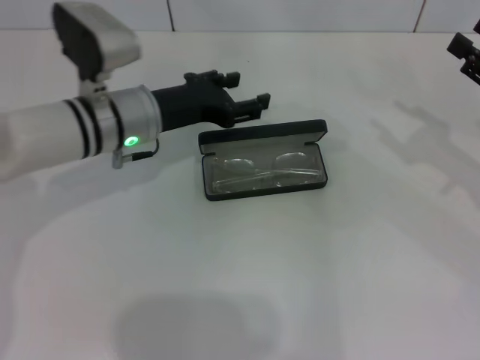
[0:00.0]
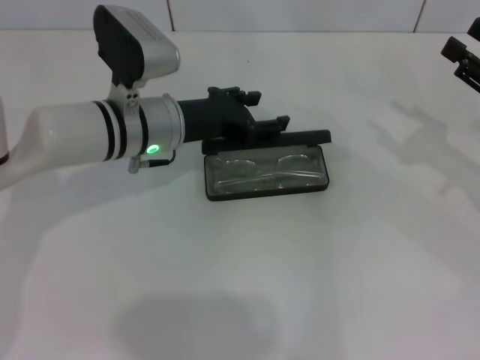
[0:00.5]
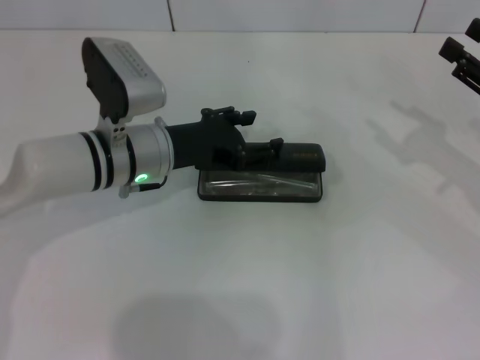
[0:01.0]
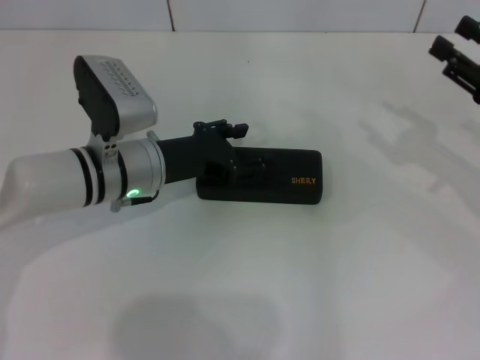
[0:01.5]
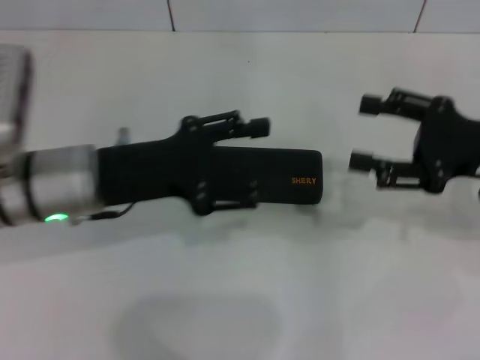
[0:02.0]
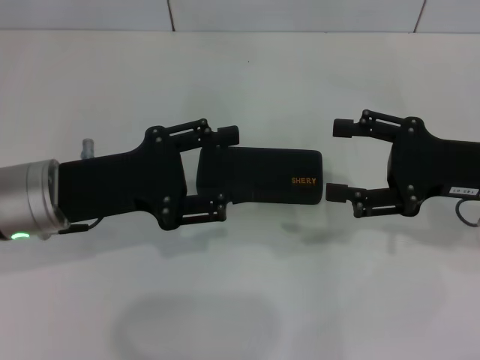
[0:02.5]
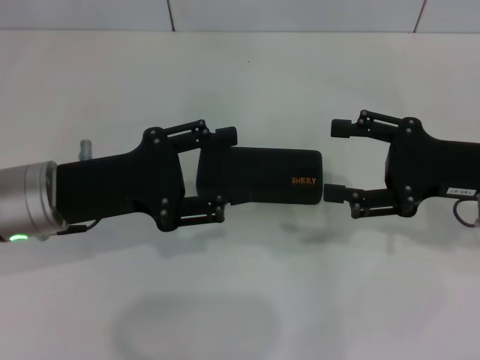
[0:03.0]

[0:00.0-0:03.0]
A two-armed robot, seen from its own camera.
0.0 to 1.5 s: The grippers stay close to where they were, moving slightly.
1.5 to 3.0 s: The right gripper moves to the left, about 5 cm, and opens up, while the left gripper moves backward, to the left and upward, roughly 10 cm.

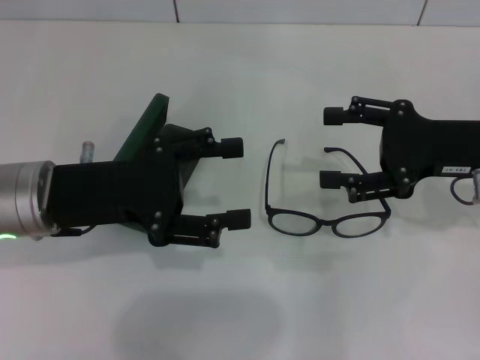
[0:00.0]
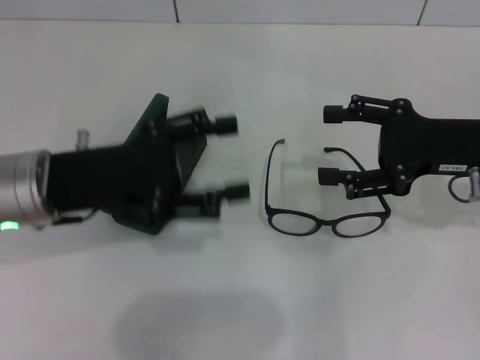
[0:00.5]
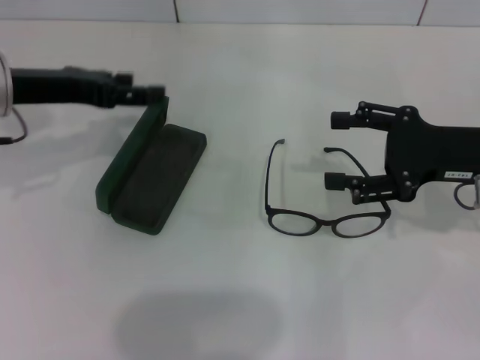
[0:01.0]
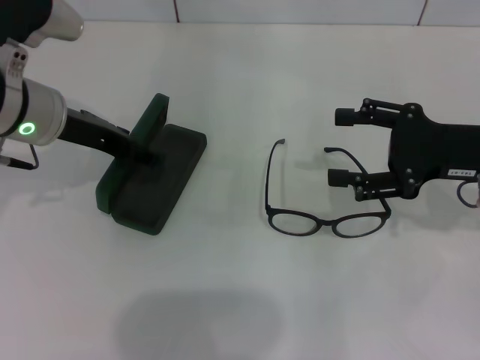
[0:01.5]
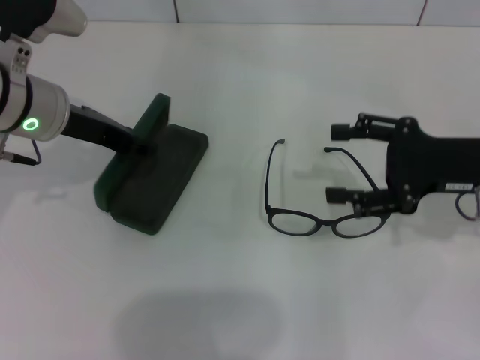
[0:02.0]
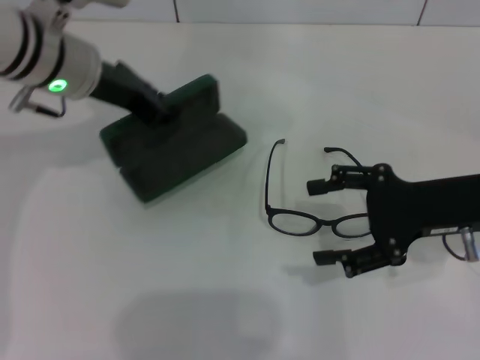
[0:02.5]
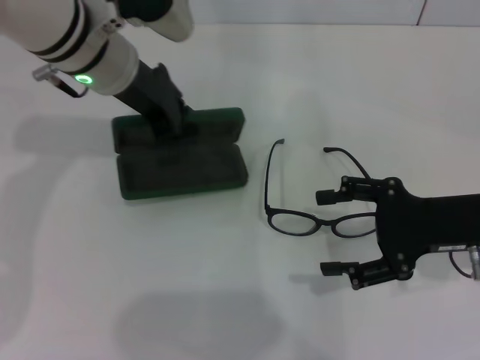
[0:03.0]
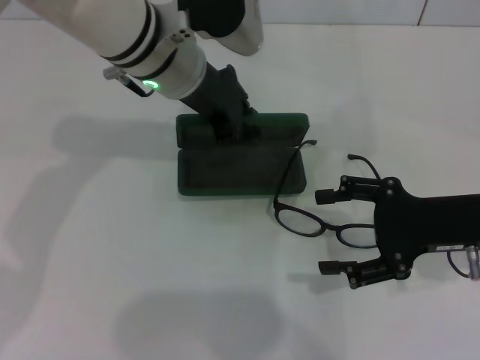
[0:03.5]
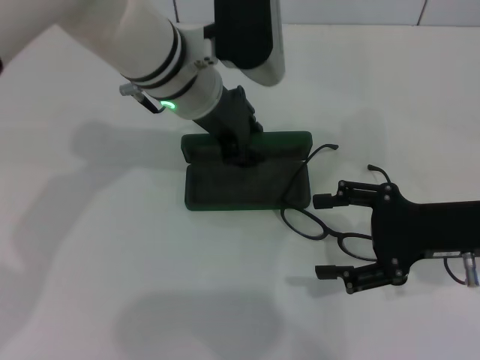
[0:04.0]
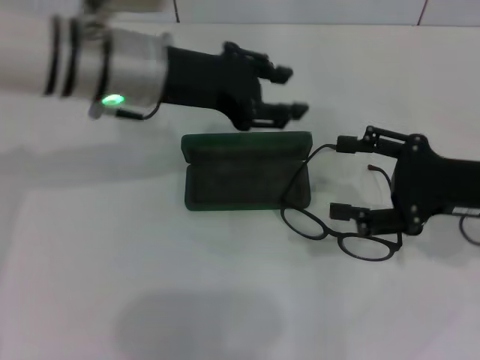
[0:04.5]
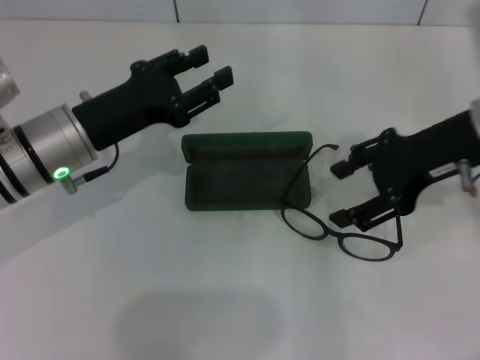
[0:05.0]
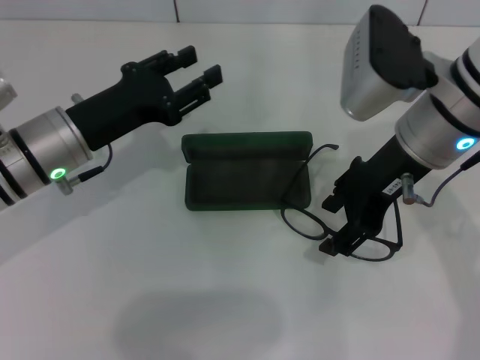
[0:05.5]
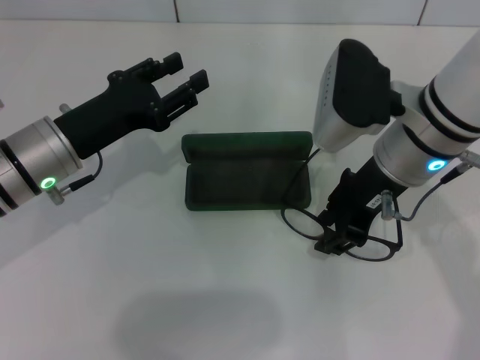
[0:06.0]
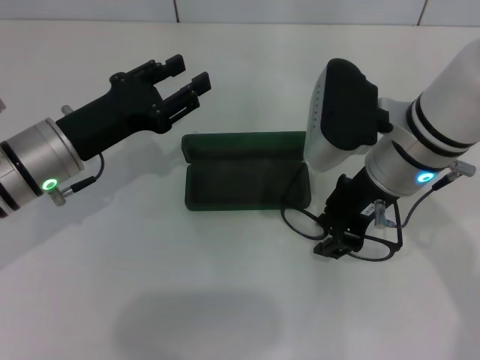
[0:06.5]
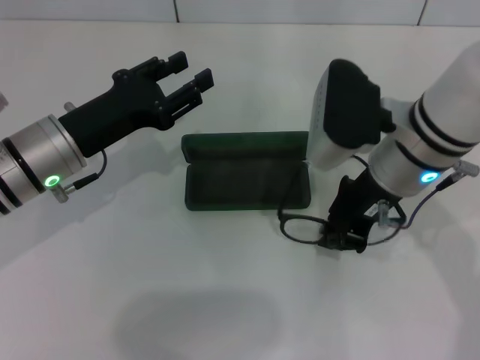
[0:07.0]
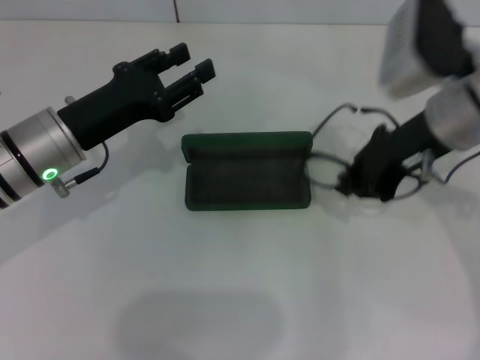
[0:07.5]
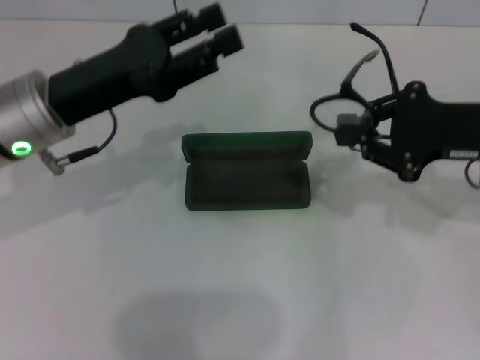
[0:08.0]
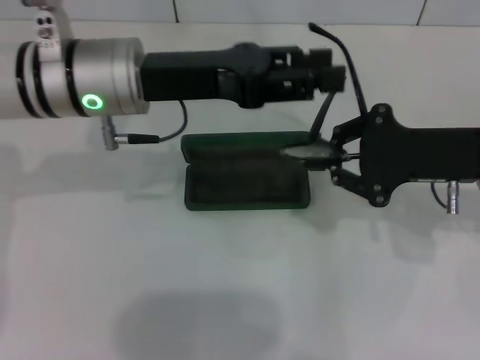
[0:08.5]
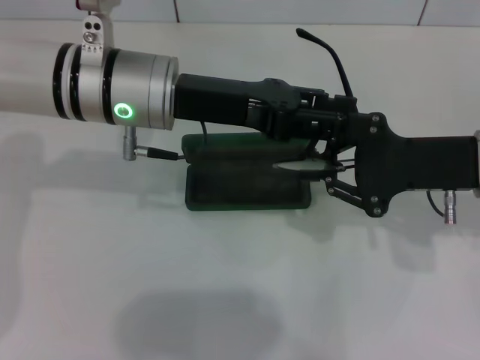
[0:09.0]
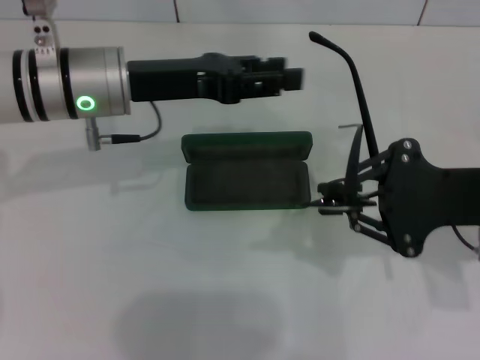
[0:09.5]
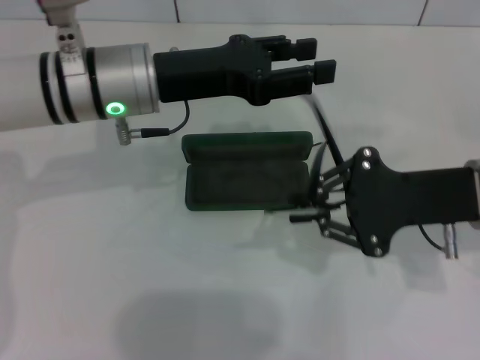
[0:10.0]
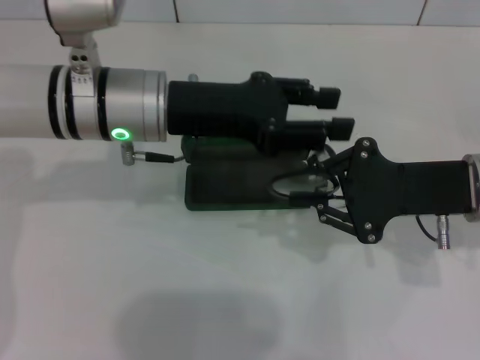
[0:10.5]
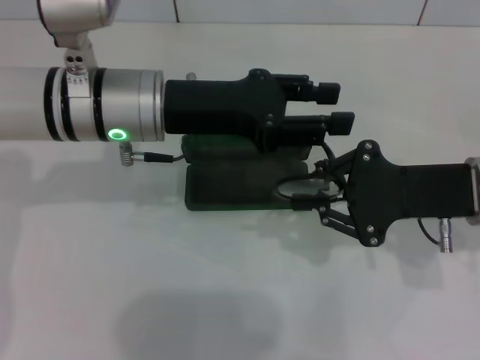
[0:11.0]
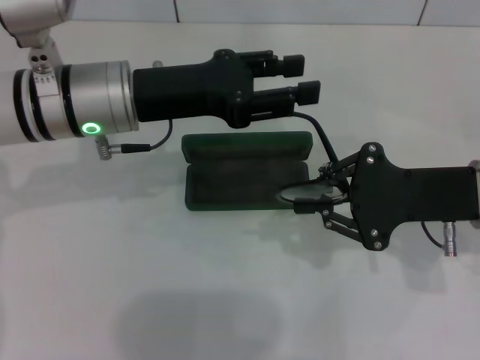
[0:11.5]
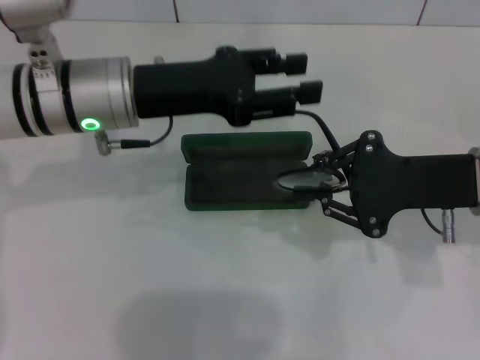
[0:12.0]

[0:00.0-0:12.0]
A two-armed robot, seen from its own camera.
Step, 0.0 to 2.0 s: Grab the glasses case with your left hand.
Step, 2.5 to 4.0 s: Place the glasses case in the center of the table with your left hand.
Step, 4.5 to 6.5 s: Grab the eyeglass frame with your right hand.
Step, 7.0 to 10.5 s: Fold the frame with your left hand.
0.0 to 2.0 s: The left gripper goes some 10 cm forward, and closes.
2.0 to 4.0 s: The left gripper heads to the right, covering roughly 15 cm, and closes up.
4.0 to 6.0 s: The left gripper is displaced to the left, downward and backward by some 20 cm, and opens its fingers, while the right gripper travels to the left, upward and forward by approximately 15 cm, and closes up.
6.0 to 8.0 s: The left gripper travels upward by approximately 5 cm. The right gripper heads to the right, covering approximately 15 cm, and closes.
8.0 to 10.0 s: The left gripper travels to the right by roughly 5 cm. The right gripper shifts by some 5 cm.
10.0 to 12.0 s: The grippers stay close to where they were, moving slightly.

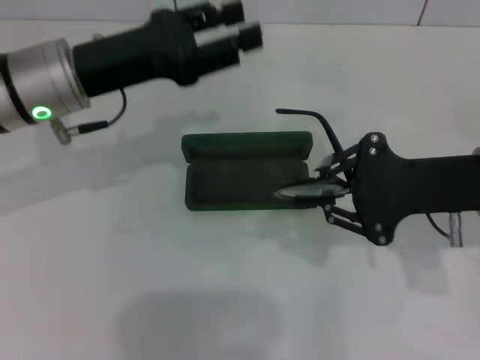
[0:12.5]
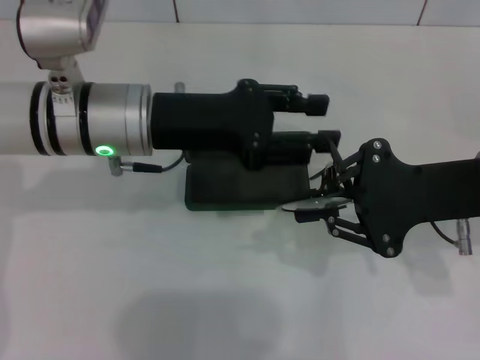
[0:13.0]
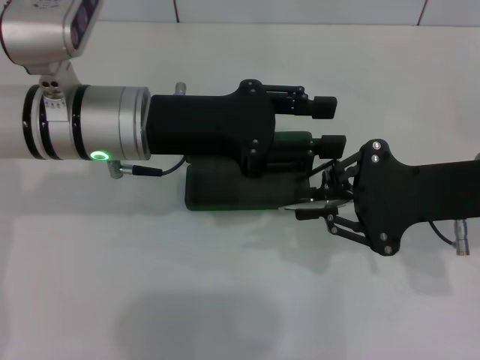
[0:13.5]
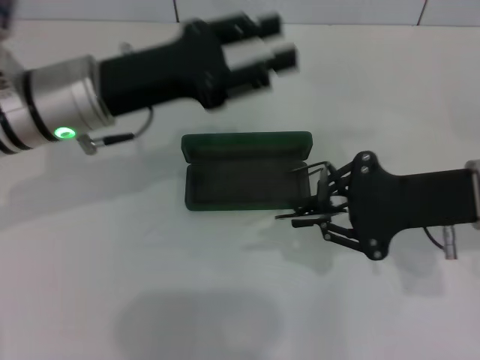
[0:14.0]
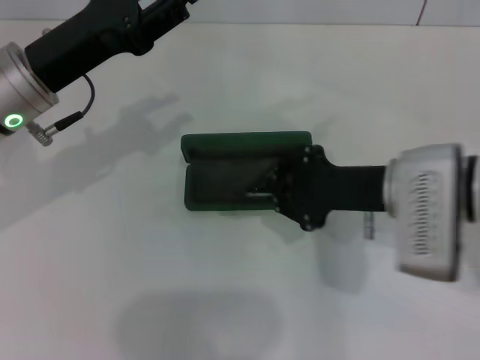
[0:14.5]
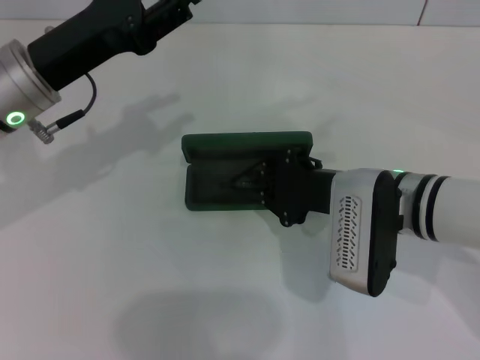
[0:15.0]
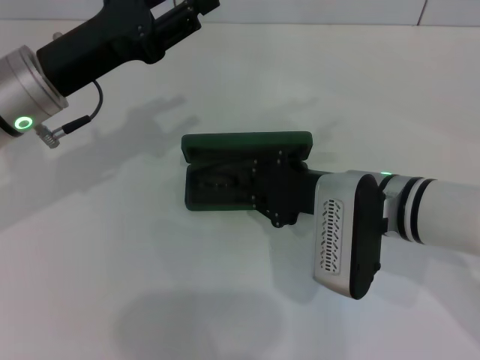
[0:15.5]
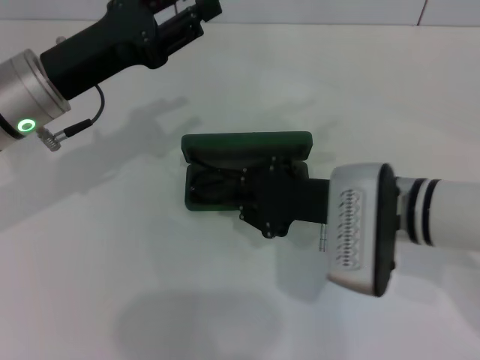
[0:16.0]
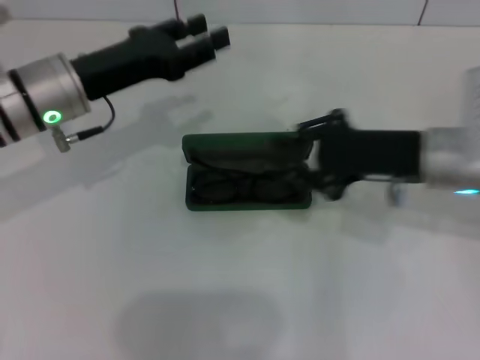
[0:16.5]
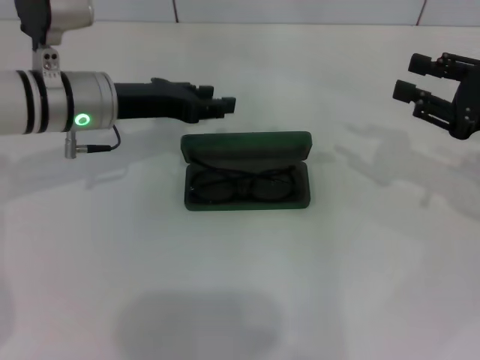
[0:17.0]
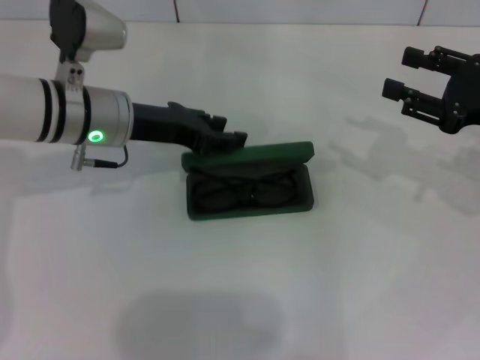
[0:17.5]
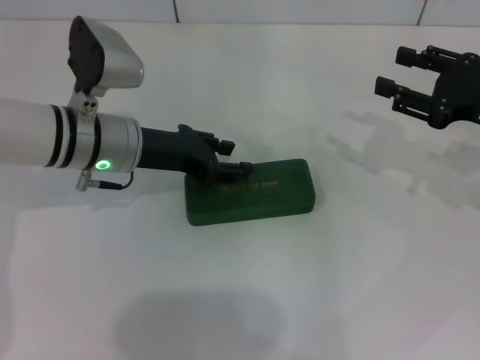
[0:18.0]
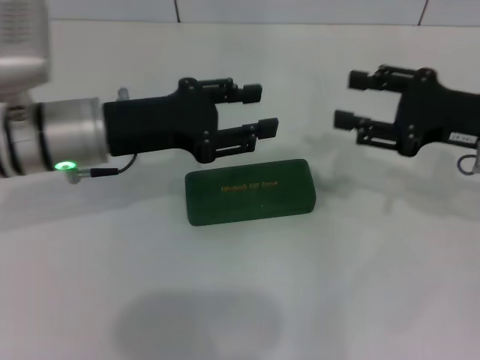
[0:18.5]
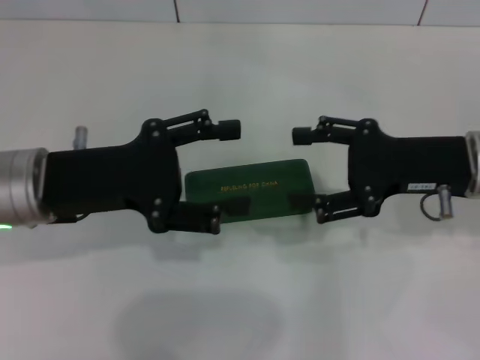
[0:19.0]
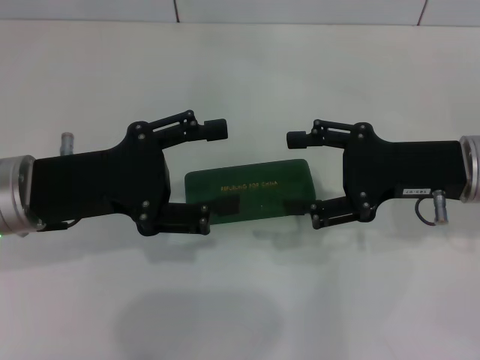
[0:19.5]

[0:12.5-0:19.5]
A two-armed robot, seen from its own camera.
Step, 12.5 to 15.5 s: Put the glasses into the case with your right hand.
Step, 16.0 to 17.5 s: Close the glasses case with your left hand.
12.5 to 14.5 s: The left gripper moves some 5 cm to the right and comes back. The right gripper moves to the left, some 5 cm.
14.5 to 16.0 s: There are only small adjustments of the grippers.
16.0 to 17.5 s: The left gripper ends up some 5 cm from where it was, while the right gripper is displaced to the right by approximately 20 cm, and opens.
17.5 to 19.5 s: The right gripper moves to the left, some 10 cm, and opens up. The left gripper moves backward, roughly 10 cm, and opens up.

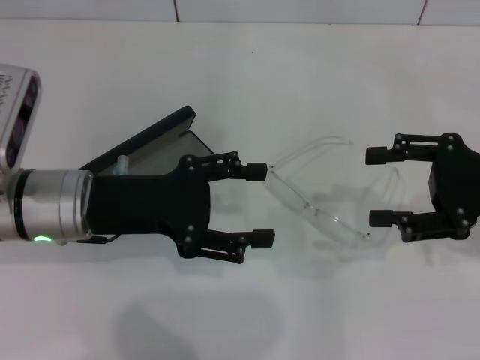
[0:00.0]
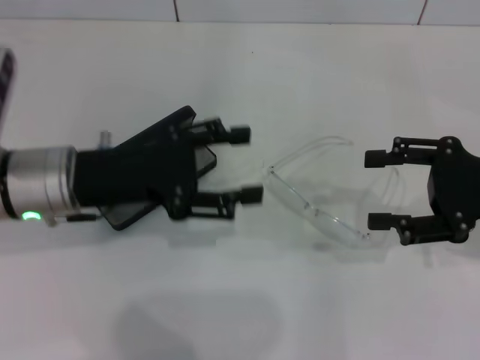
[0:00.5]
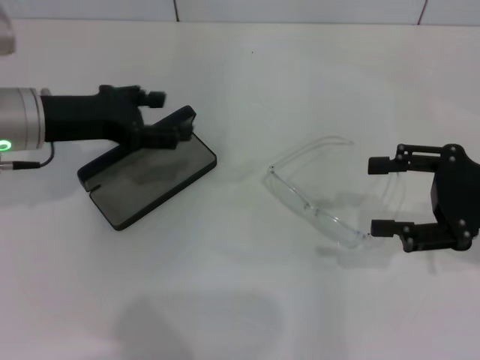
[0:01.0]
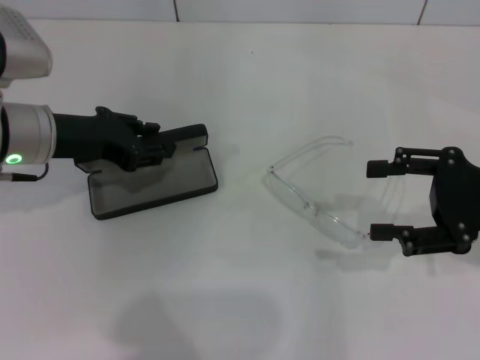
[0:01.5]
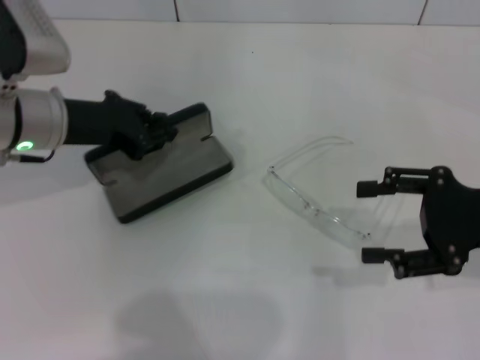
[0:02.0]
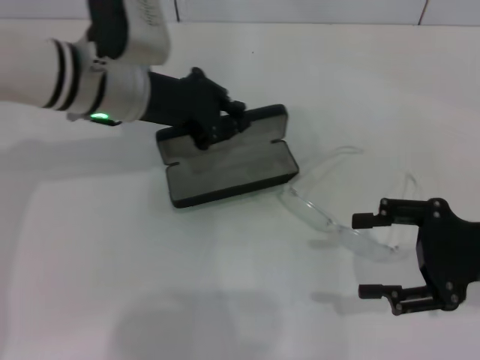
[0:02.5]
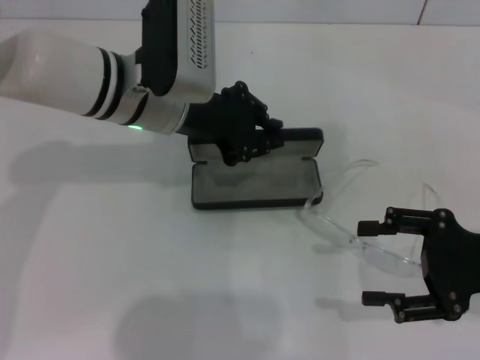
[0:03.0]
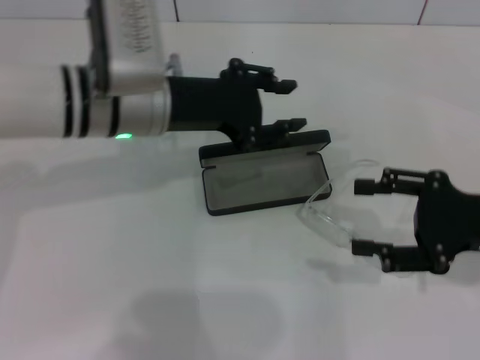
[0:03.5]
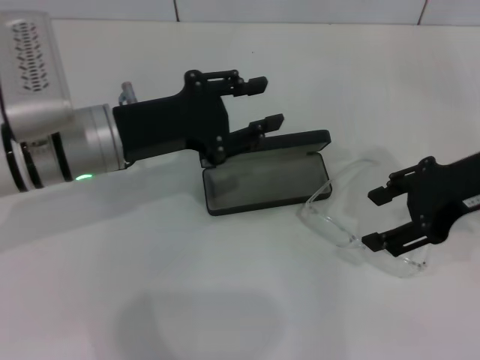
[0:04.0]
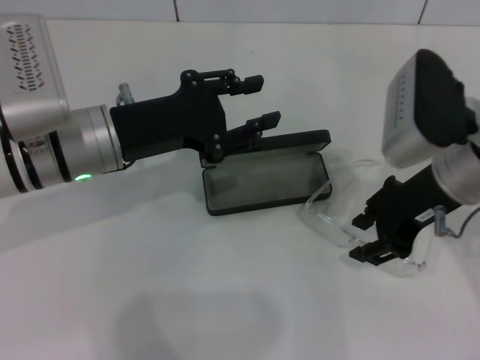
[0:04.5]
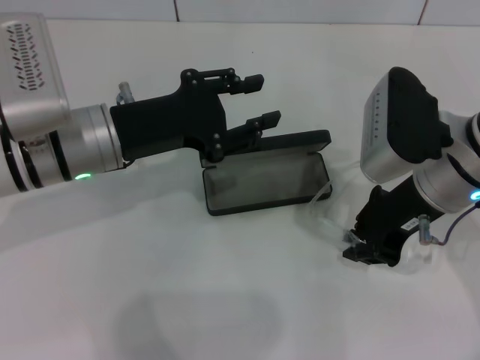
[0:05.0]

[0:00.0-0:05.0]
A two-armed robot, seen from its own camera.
Step, 0.0 to 1.5 s: Grab the glasses case with your left hand.
Step, 2.0 to 3.0 s: Place the glasses case in the center of the table with your left hand.
Step, 3.5 to 5.0 s: Grab the eyeglass frame with your right hand.
0.0 to 2.5 s: The left gripper shifts approximately 10 cm forward, and closes up, while the right gripper ends up approximately 5 cm from where it was.
2.5 to 5.0 s: The right gripper travels to the left and forward by roughly 15 cm, and closes up; the left gripper heads backward, covering some 5 cm, and opens.
